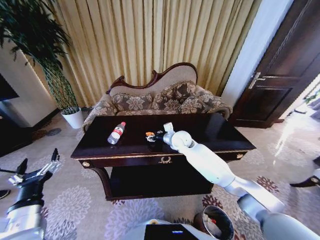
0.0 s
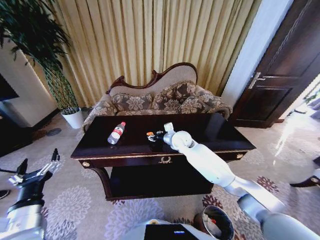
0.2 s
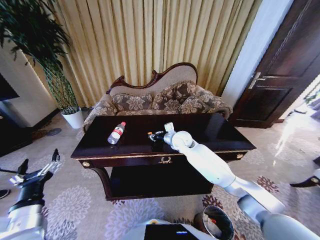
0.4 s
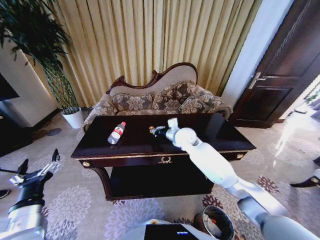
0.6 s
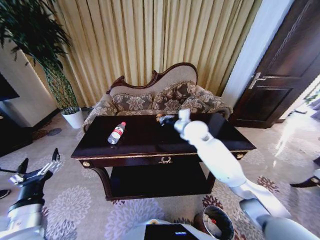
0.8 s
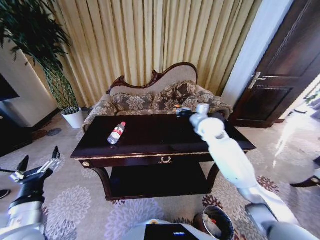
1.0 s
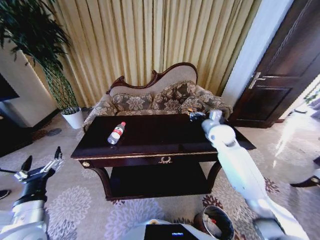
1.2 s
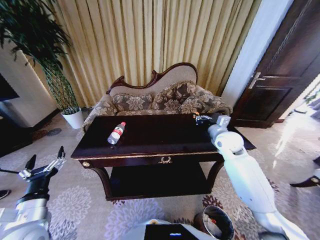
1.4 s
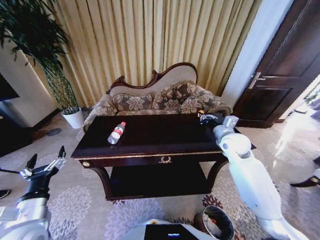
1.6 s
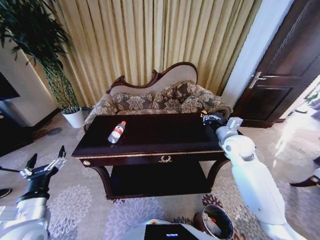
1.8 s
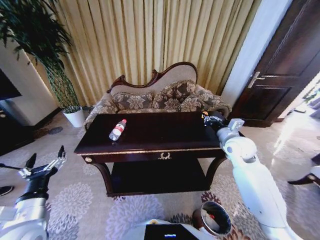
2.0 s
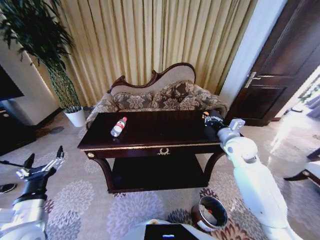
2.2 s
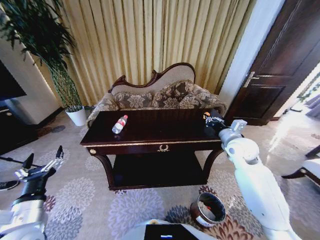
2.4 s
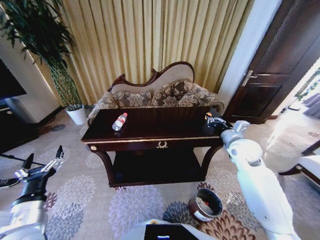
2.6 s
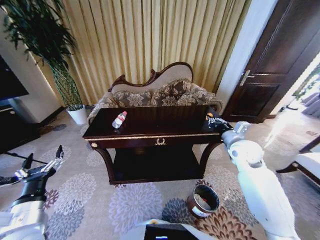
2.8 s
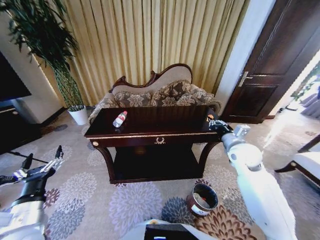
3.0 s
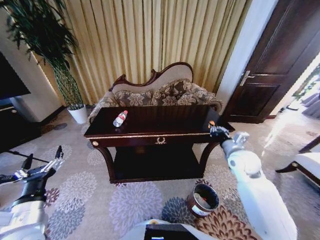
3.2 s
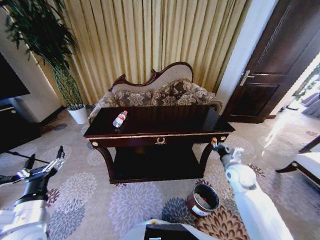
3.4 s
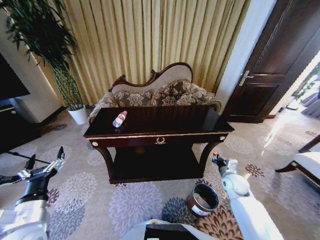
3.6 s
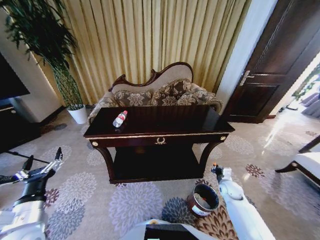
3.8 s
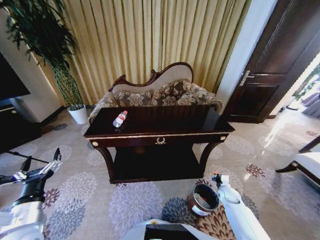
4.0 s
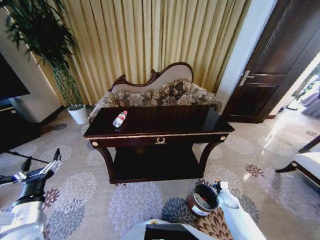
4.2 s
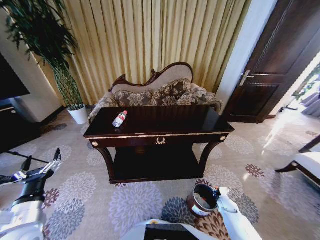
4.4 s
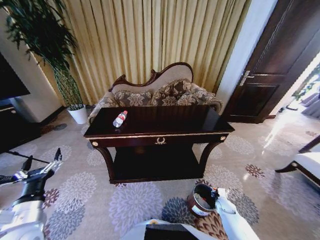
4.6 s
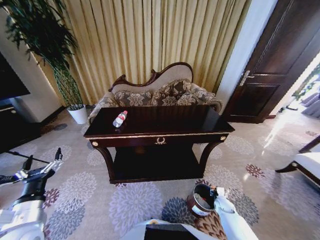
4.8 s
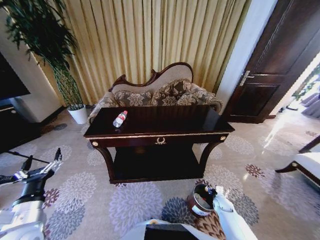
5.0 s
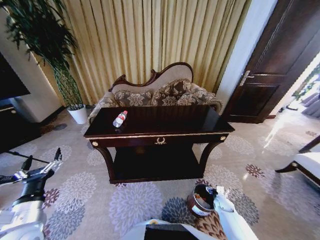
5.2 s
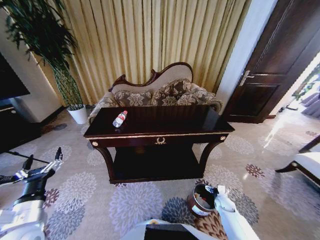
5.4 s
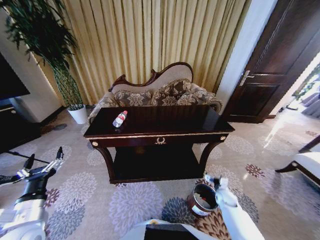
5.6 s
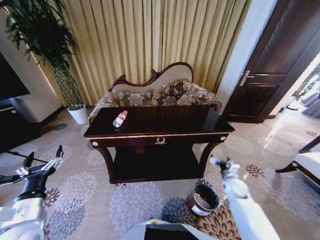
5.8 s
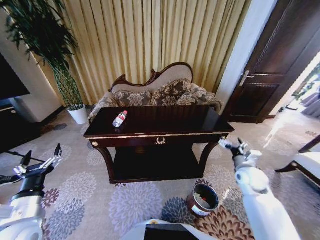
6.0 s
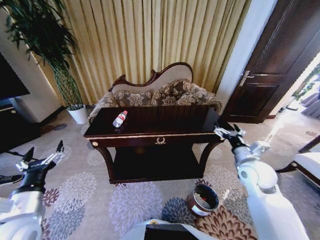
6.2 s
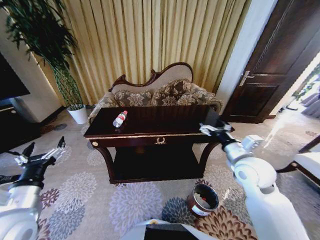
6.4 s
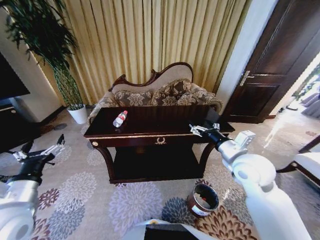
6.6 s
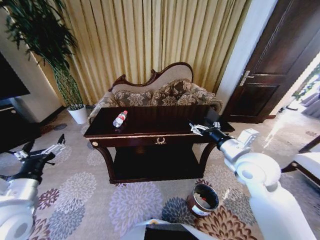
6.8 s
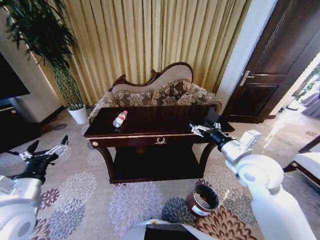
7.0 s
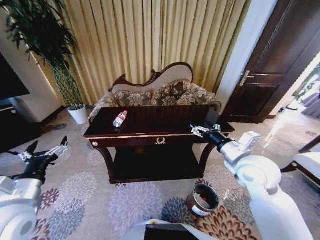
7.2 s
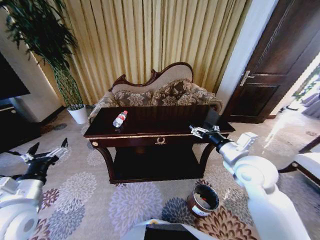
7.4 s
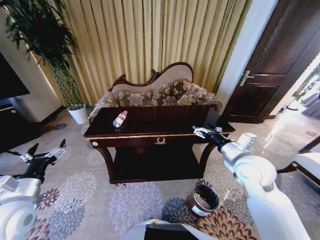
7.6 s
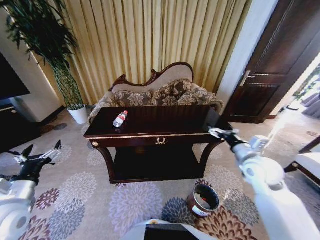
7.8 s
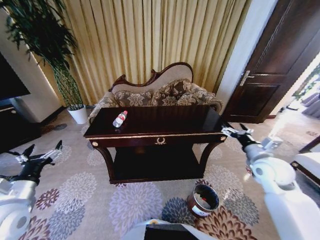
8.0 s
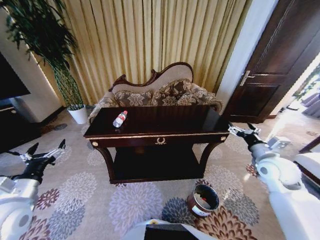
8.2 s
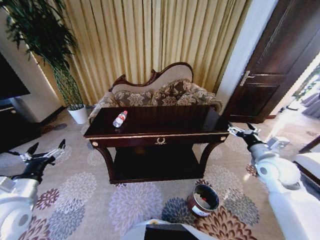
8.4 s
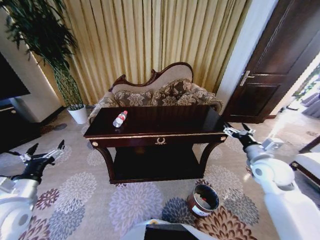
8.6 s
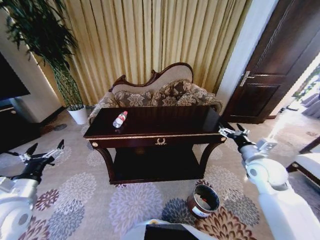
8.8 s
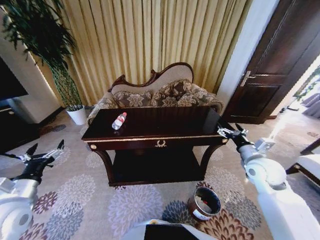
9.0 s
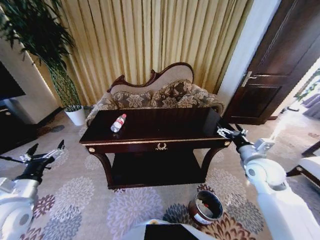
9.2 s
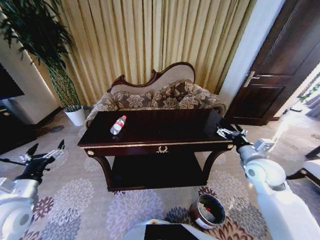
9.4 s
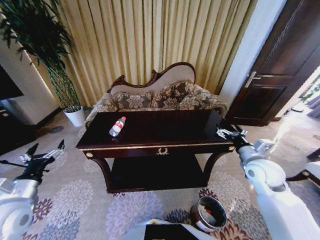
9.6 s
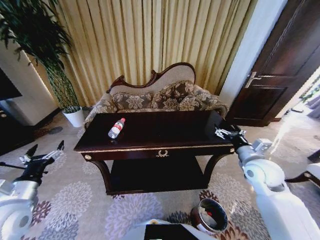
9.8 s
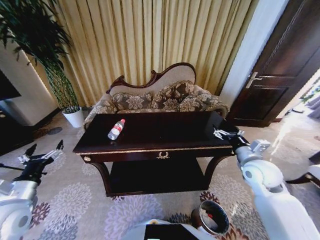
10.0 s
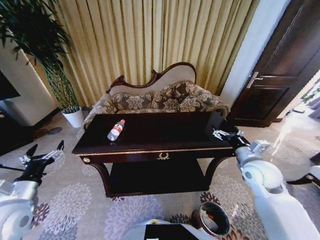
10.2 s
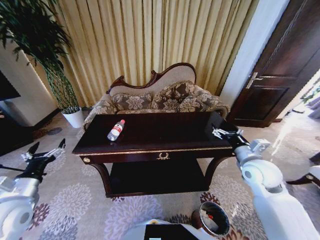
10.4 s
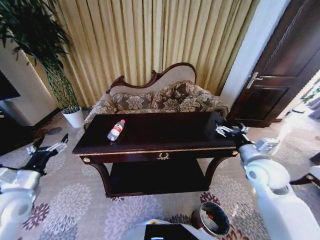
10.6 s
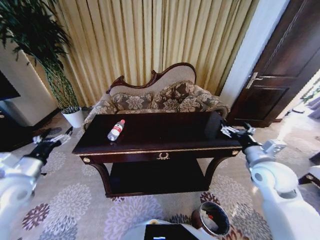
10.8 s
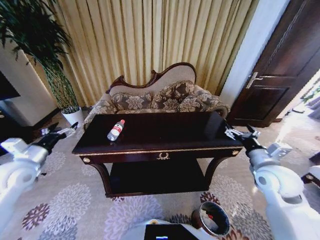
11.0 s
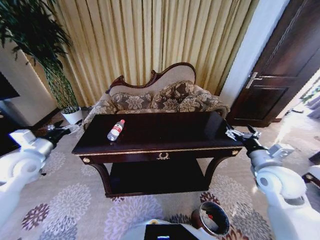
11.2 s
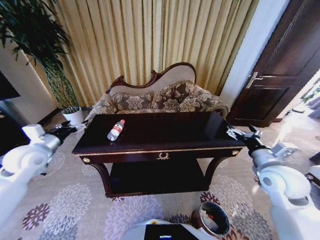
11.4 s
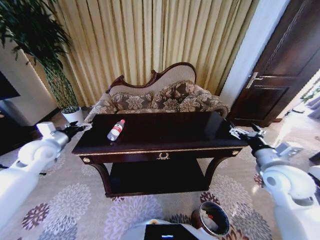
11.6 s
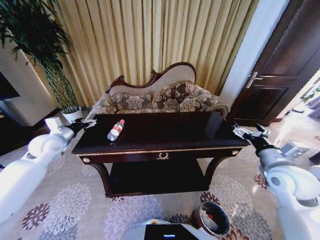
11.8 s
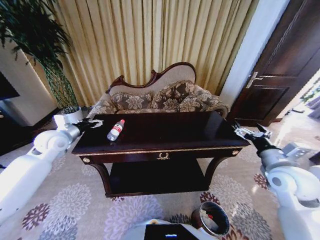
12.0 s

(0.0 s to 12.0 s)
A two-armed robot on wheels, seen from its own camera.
Task of the whole recording: Move to the front of the table and place the trash on the table into the trash bin.
0.0 s - 1.6 s: The right gripper shifts roughly 20 cm to the right, and closes up.
1.6 s - 3.0 s: The right gripper changes place by about 5 cm.
3.0 s - 4.4 s: The right gripper moves downward, approximately 40 cm.
4.4 s - 6.0 s: The right gripper moves upward, roughly 30 cm, and opens up.
6.0 s - 7.6 s: The left gripper moves some 5 cm, while the right gripper is displaced upward and to the left by about 15 cm.
7.6 s - 9.0 s: The right gripper moves to the right, some 10 cm.
10.4 s - 12.0 s: The left gripper shifts approximately 20 cm forward. Meanwhile the right gripper changes place by about 5 cm.

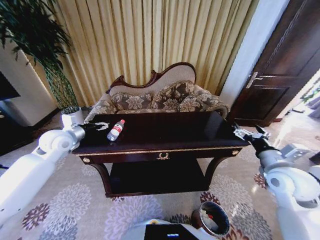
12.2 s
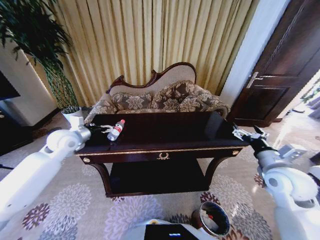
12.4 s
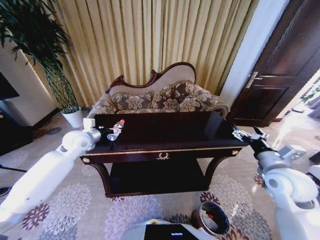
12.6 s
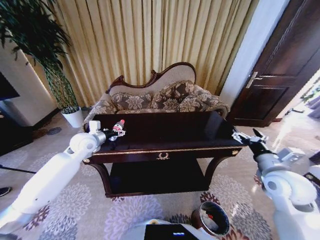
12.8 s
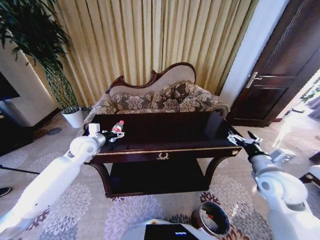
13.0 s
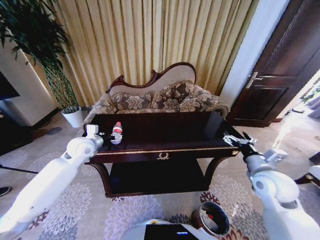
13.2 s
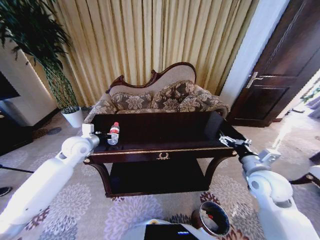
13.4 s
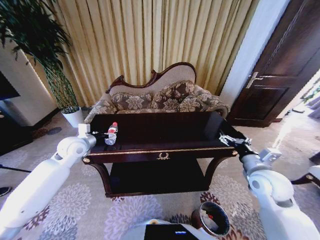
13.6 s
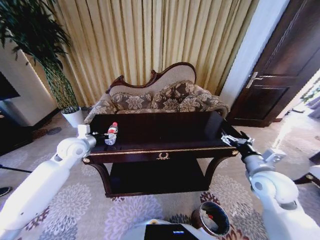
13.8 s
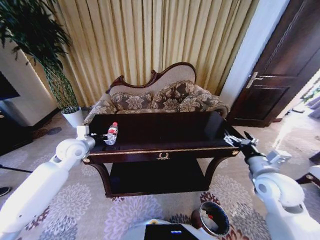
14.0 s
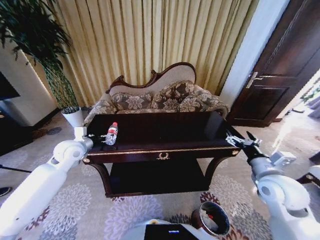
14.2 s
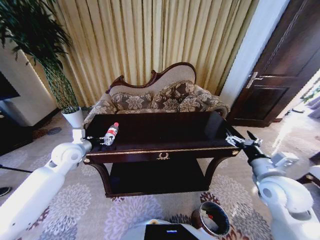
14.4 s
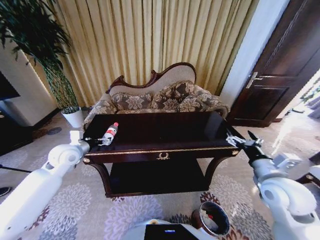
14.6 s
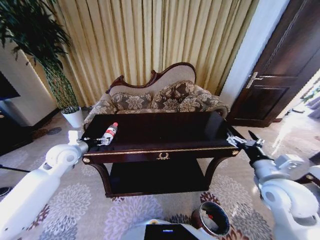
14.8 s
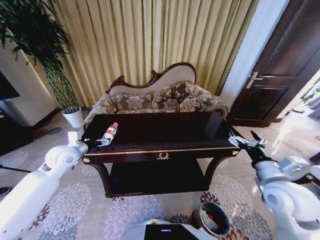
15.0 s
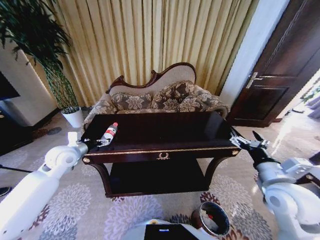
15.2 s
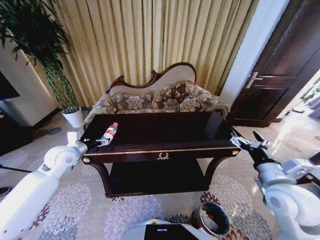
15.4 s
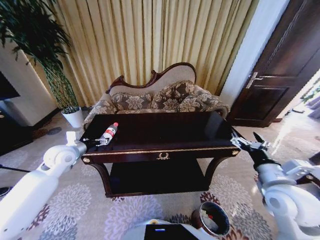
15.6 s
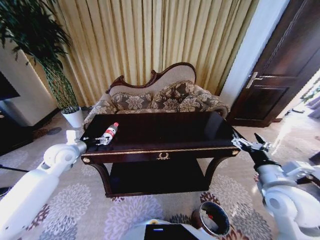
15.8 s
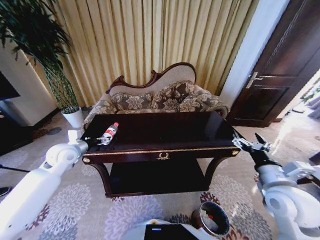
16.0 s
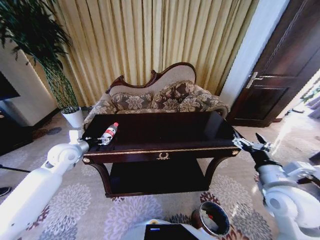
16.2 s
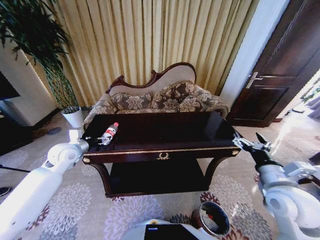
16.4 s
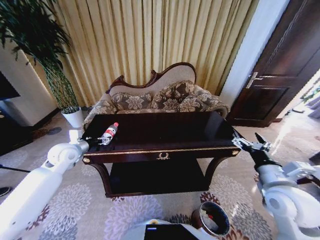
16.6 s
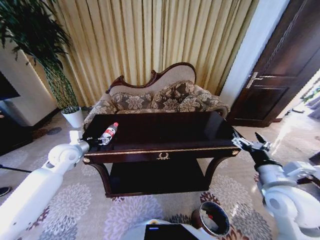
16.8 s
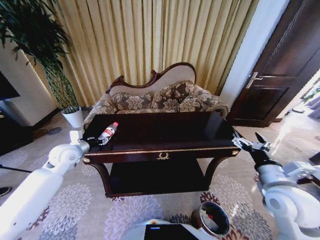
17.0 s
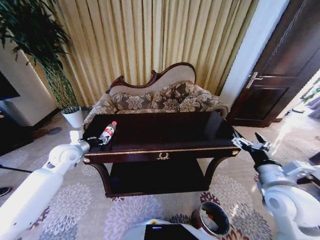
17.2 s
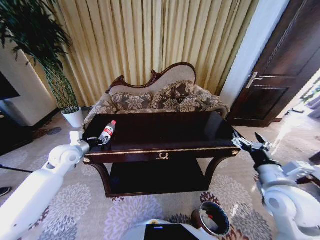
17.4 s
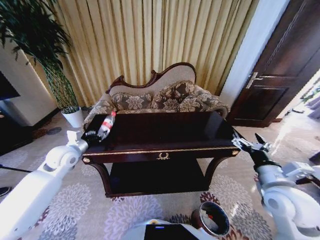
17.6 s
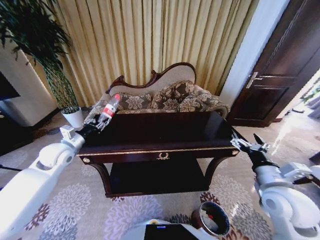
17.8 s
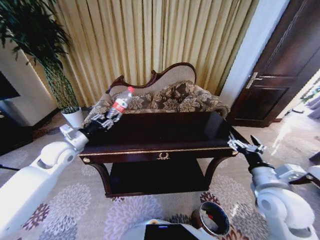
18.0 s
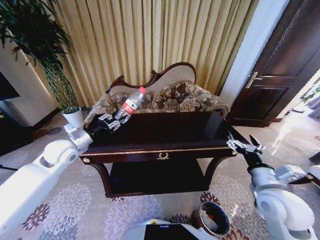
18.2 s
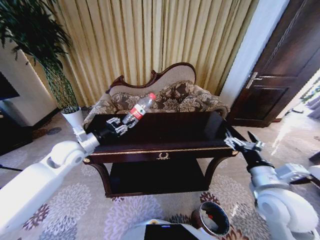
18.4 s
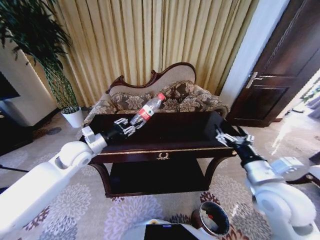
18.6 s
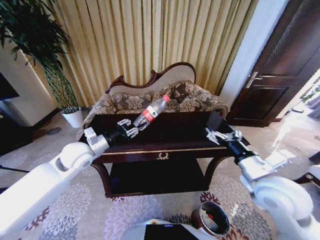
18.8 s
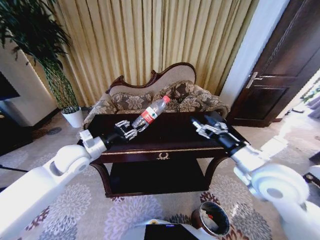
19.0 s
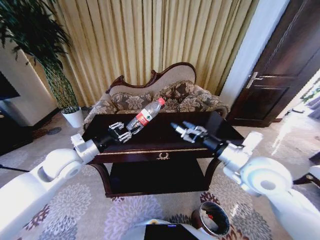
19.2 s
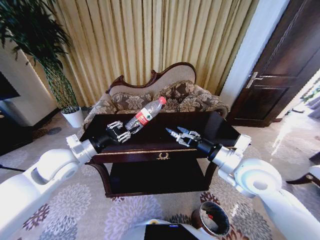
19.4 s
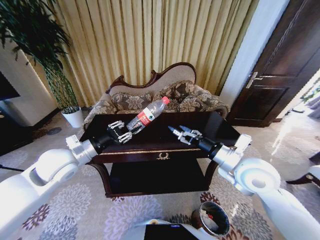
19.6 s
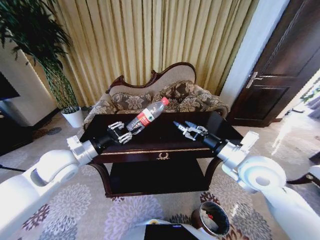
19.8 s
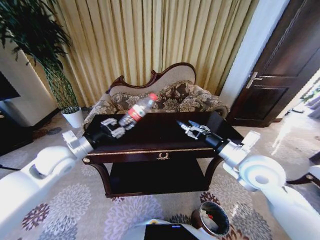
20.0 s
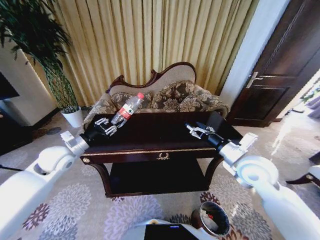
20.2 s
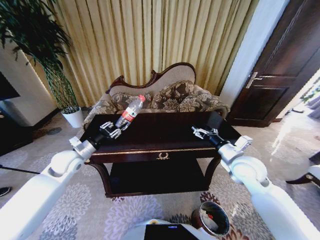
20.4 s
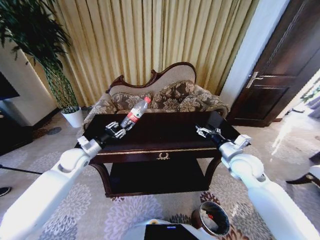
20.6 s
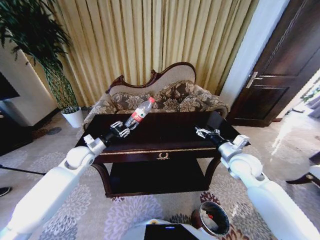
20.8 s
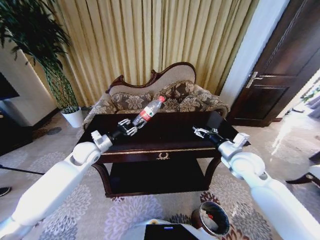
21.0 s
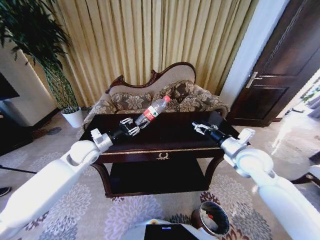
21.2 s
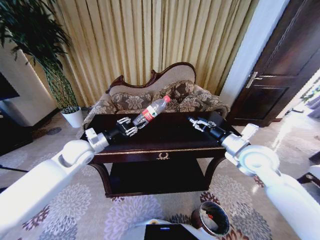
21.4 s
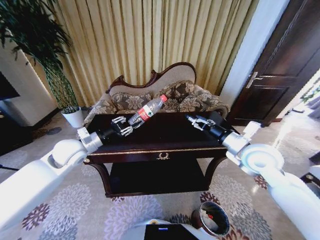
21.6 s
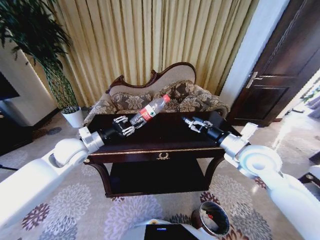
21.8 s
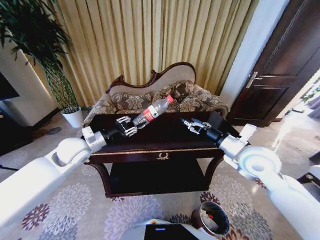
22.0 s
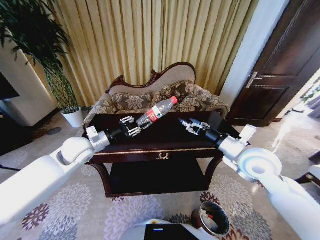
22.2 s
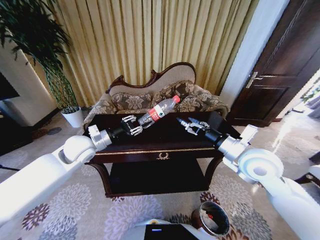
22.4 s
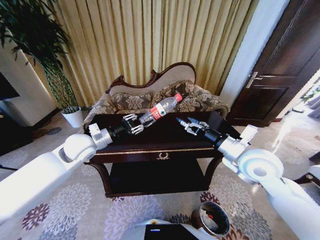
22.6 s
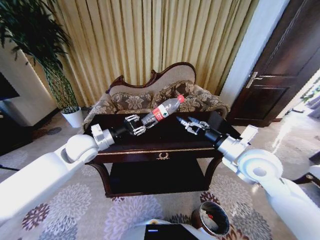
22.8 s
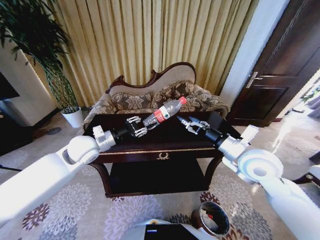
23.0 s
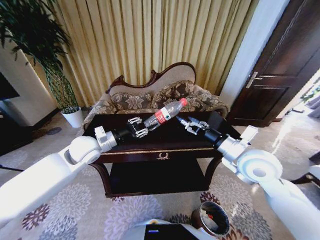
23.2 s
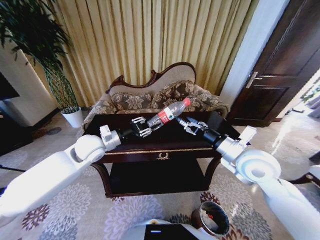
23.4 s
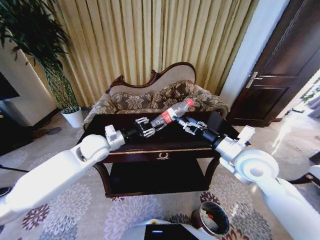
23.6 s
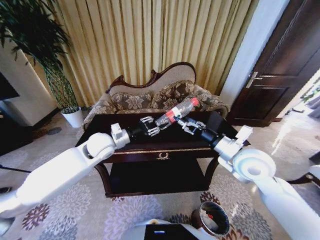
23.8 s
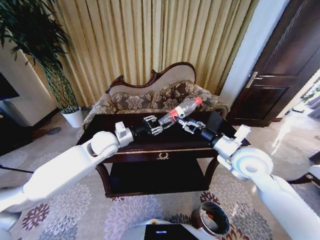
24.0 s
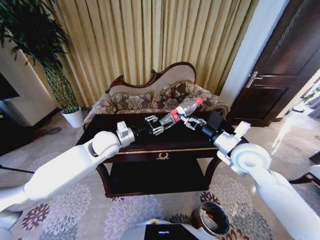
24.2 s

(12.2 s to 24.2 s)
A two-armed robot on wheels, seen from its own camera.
Task of the whole recording: Move to the front of the table and place the trash on the table into the trash bin.
13.8 s - 15.2 s: The right gripper shifts by about 5 cm.
15.2 s - 16.6 s: The grippers stay close to where they were, moving slightly.
16.6 s - 18.2 s: The left gripper closes up.
18.2 s - 19.8 s: The right gripper heads forward, upward and to the left, covering about 10 cm, while the left gripper goes some 5 cm backward.
19.8 s - 21.2 s: The right gripper goes some 10 cm forward and to the right; the left gripper goes approximately 10 cm forward and downward.
21.2 s - 22.6 s: The left gripper shifts by roughly 5 cm. The right gripper ends up some 5 cm from where it was.
22.6 s - 24.2 s: The left gripper goes about 10 cm to the right.
